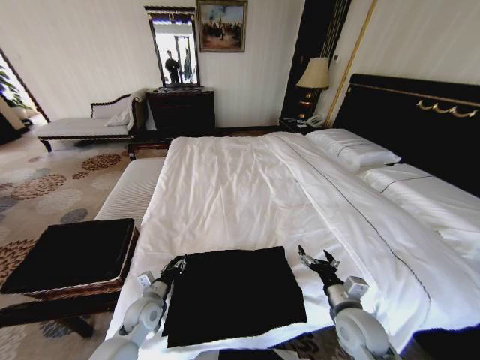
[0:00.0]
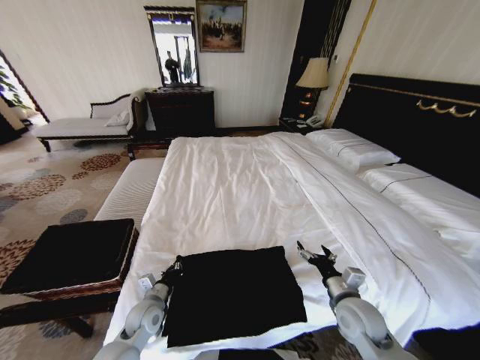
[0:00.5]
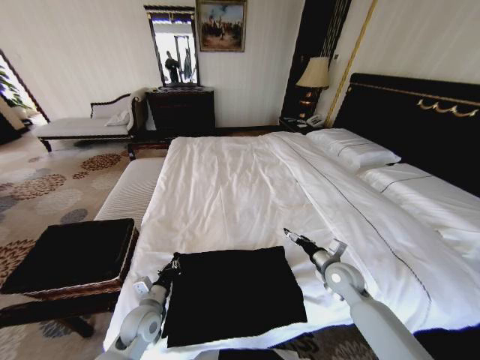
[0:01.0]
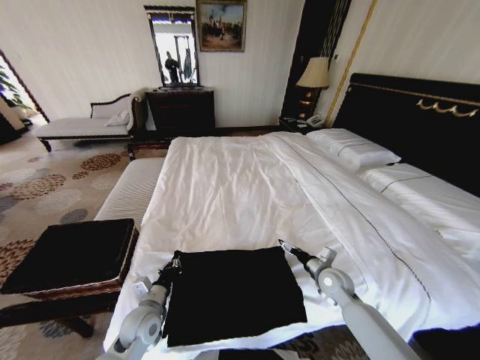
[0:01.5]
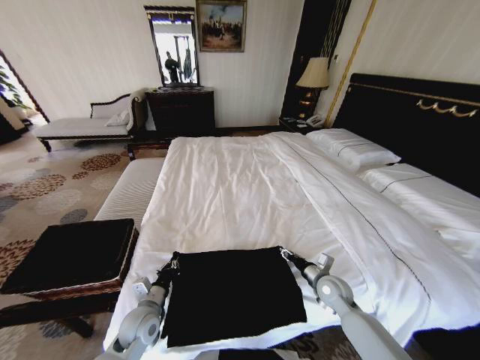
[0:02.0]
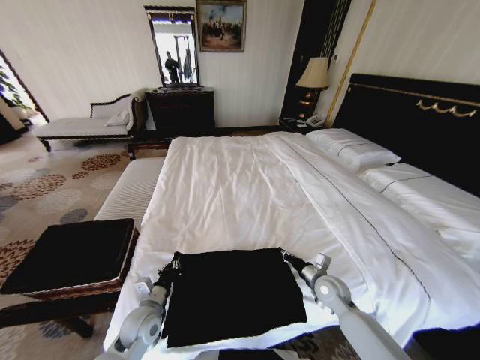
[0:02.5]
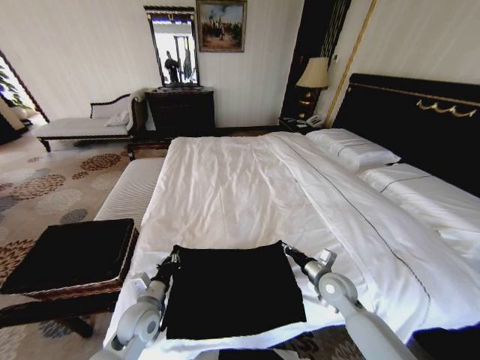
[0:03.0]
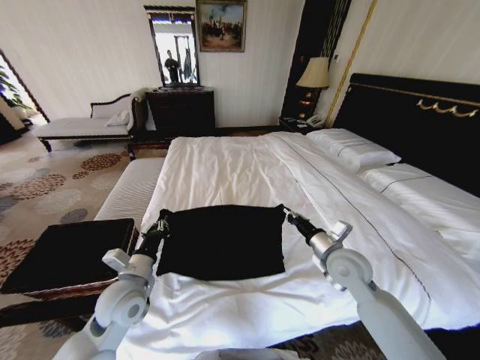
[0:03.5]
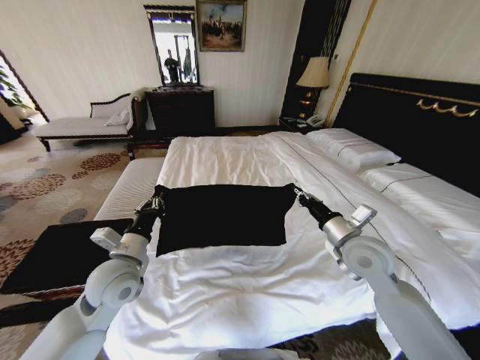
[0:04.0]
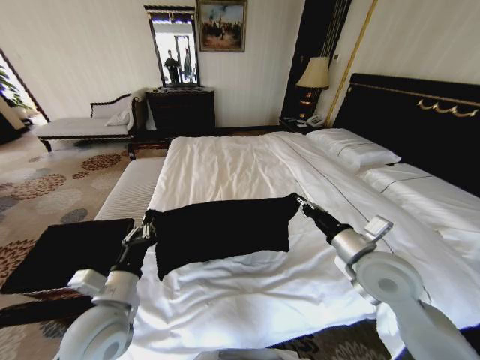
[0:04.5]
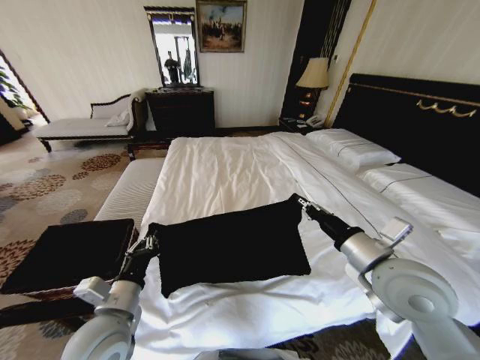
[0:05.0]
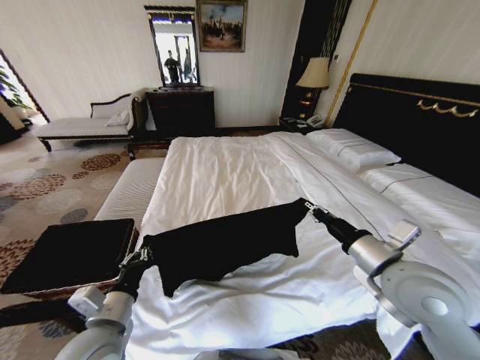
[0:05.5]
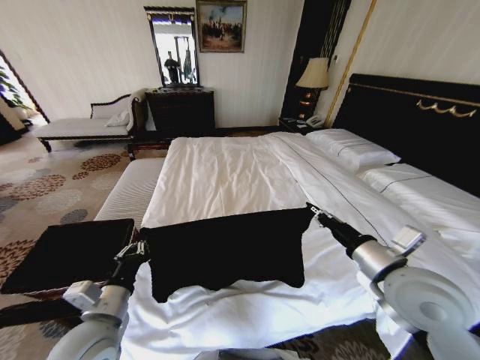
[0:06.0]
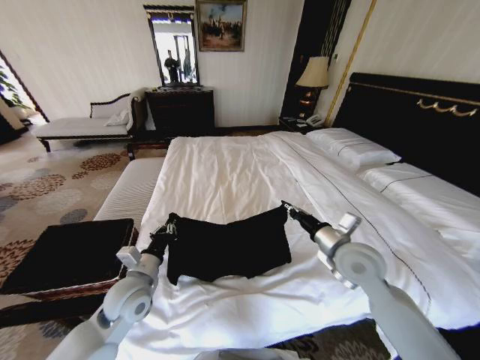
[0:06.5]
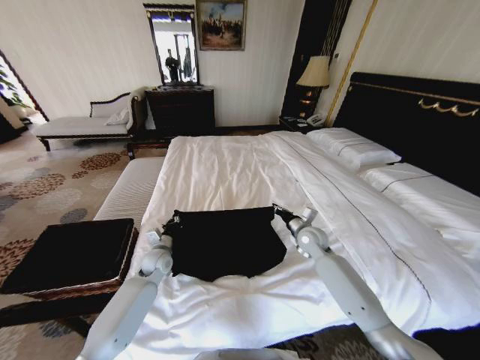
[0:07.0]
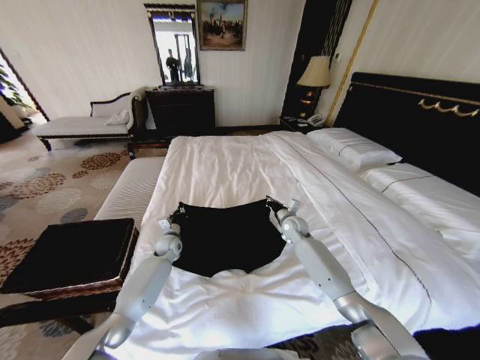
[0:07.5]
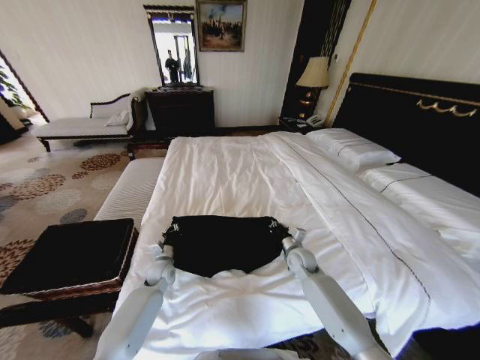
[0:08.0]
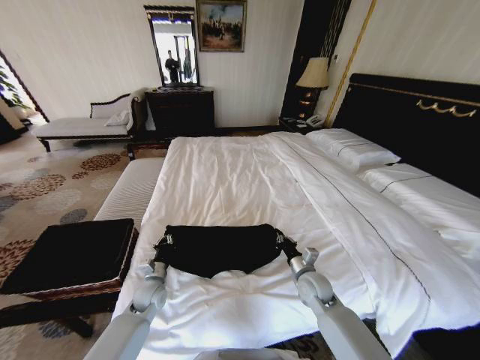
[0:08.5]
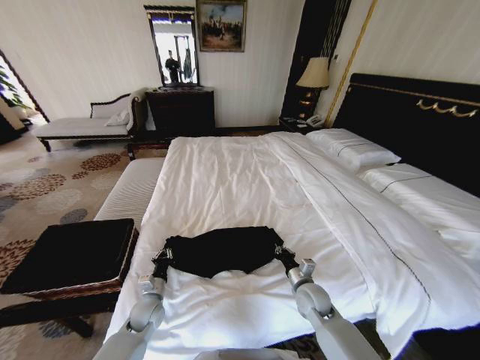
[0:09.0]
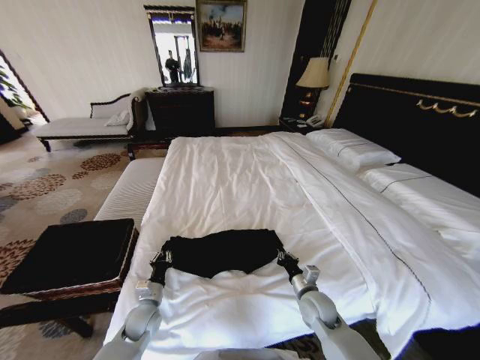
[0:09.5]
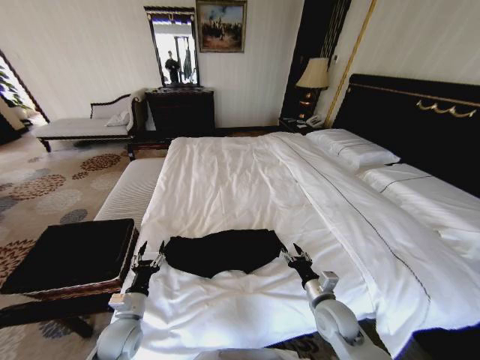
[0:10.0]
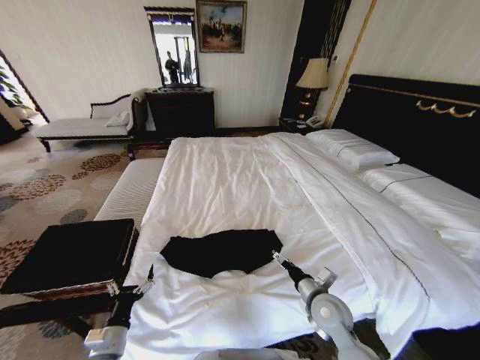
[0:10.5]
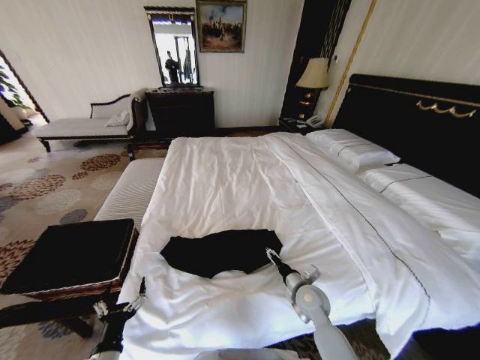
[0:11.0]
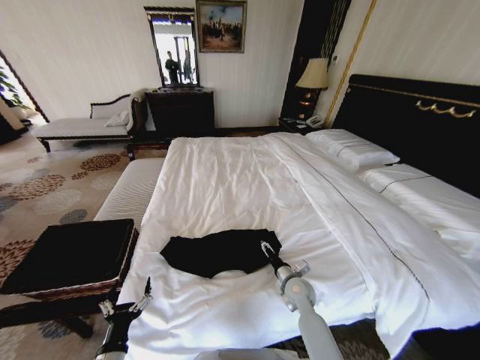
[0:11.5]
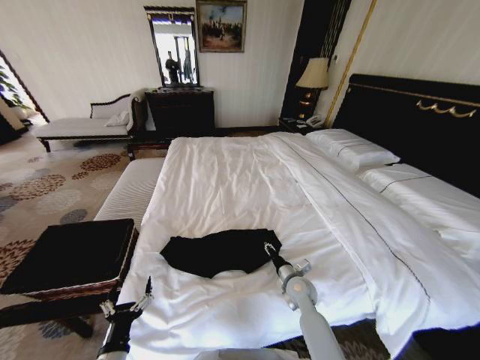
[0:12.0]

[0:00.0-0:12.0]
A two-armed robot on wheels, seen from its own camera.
Task of the whole recording: Fold the clothes on the bed and place them into the basket.
0:00.0 to 0:02.0: The right gripper goes some 10 cm forward and downward, and closes up. Meanwhile the left gripper closes its fingers.
0:02.0 to 0:04.0: Both grippers move upward, approximately 20 cm. The right gripper closes.
0:04.0 to 0:06.0: The two grippers go roughly 10 cm backward.
0:06.0 to 0:08.0: The right gripper moves downward and forward, some 30 cm, while the left gripper is displaced forward and downward by about 30 cm.
0:08.0 to 0:10.0: The grippers both shift backward by approximately 20 cm. The right gripper opens. The left gripper opens its fingers.
0:10.0 to 0:12.0: The right gripper heads forward and downward, covering approximately 10 cm, and opens, then closes again. The left gripper moves backward, some 15 cm, and opens.

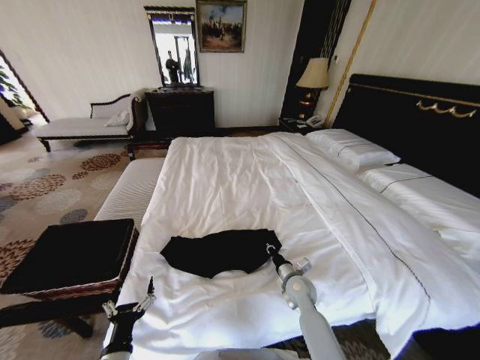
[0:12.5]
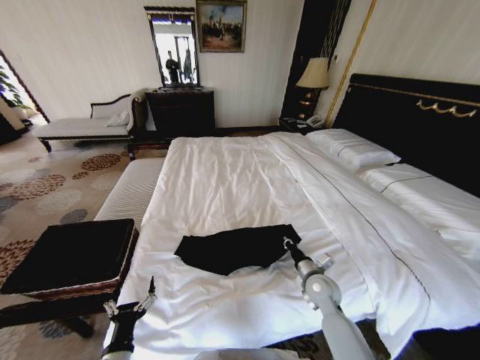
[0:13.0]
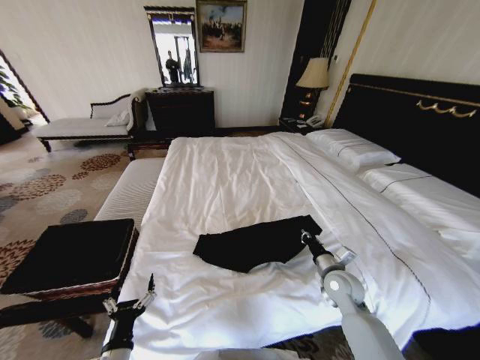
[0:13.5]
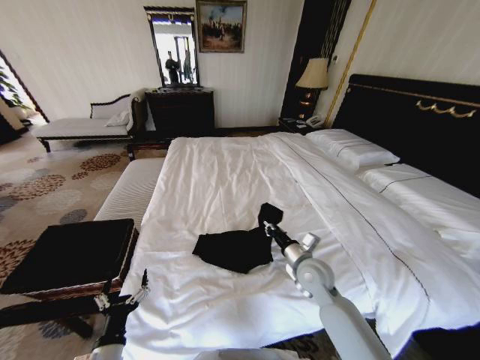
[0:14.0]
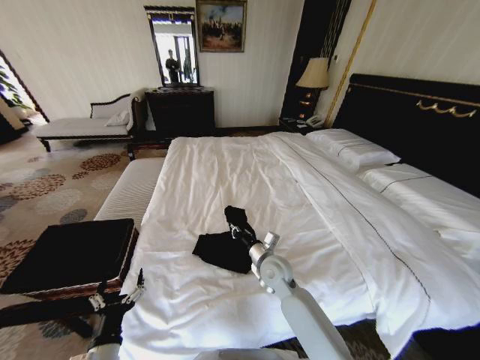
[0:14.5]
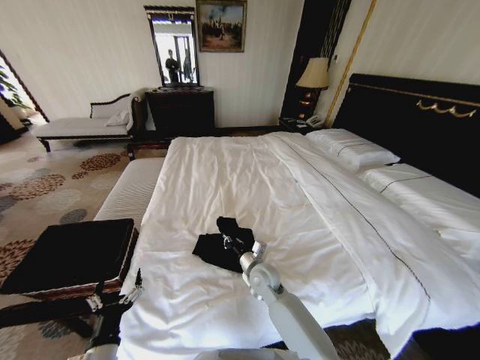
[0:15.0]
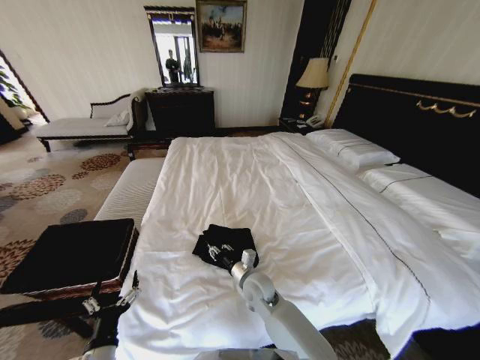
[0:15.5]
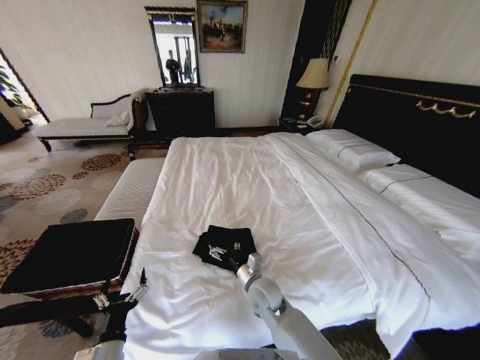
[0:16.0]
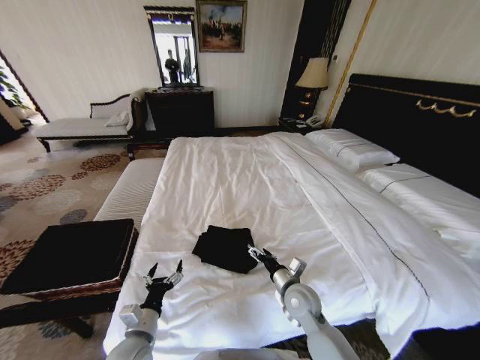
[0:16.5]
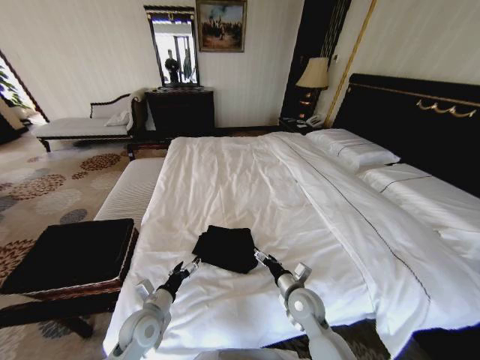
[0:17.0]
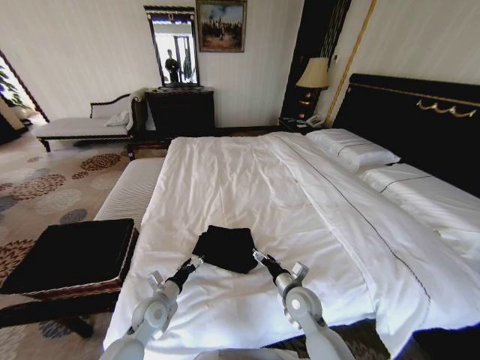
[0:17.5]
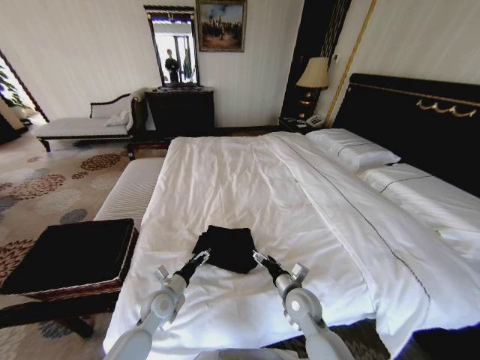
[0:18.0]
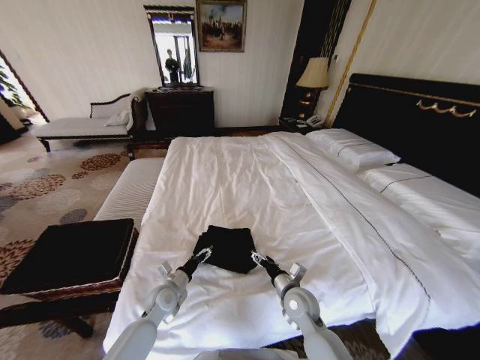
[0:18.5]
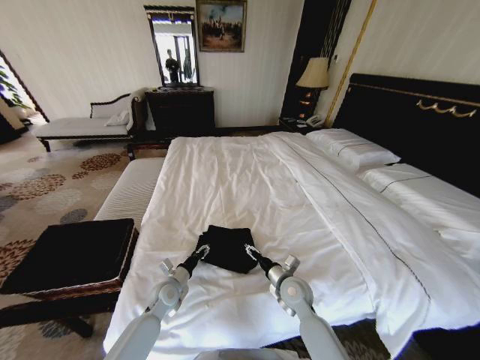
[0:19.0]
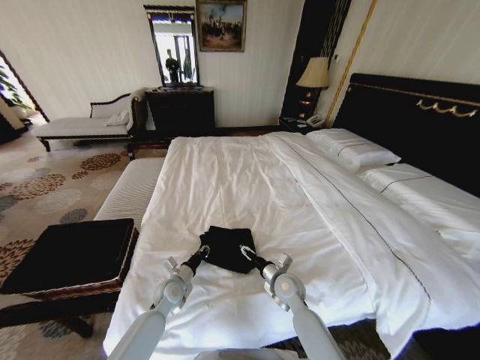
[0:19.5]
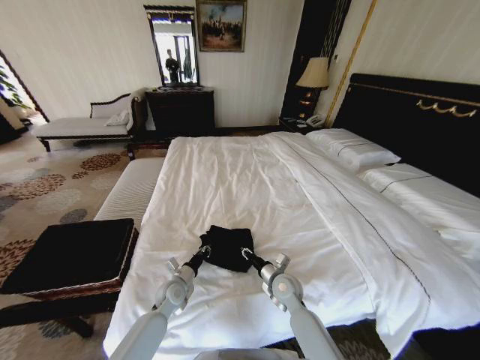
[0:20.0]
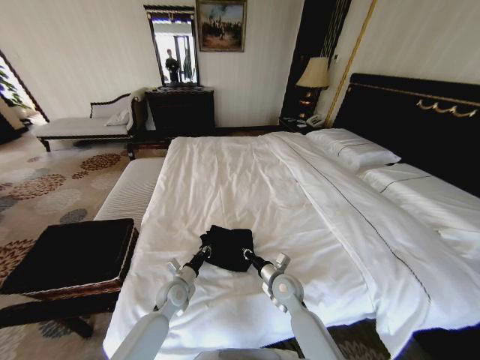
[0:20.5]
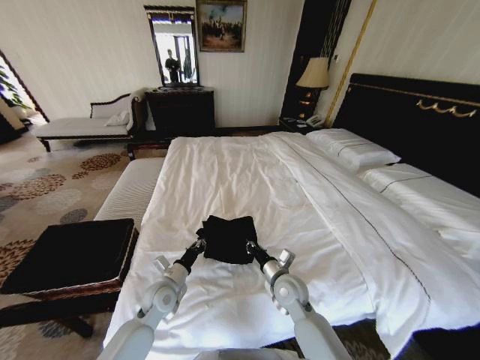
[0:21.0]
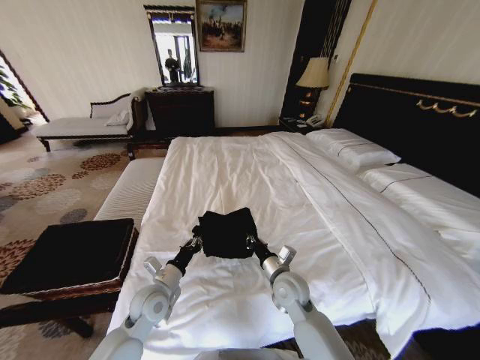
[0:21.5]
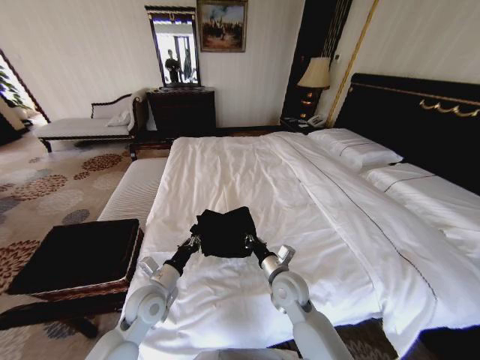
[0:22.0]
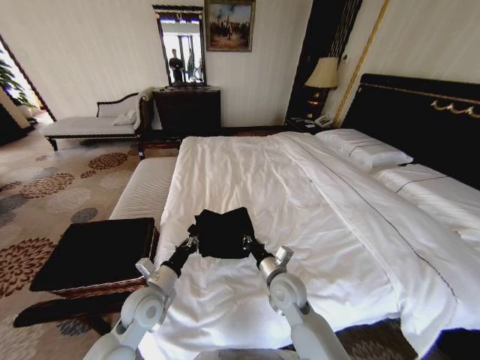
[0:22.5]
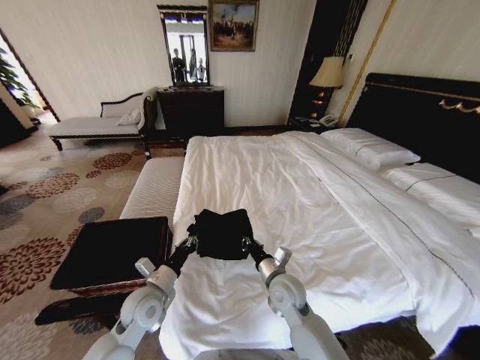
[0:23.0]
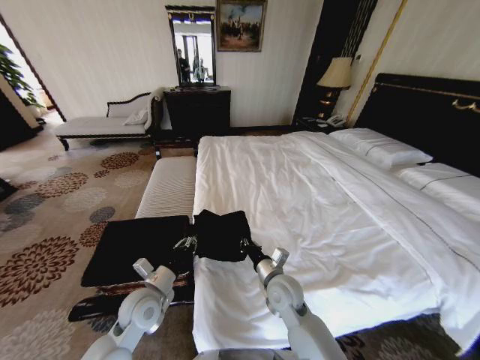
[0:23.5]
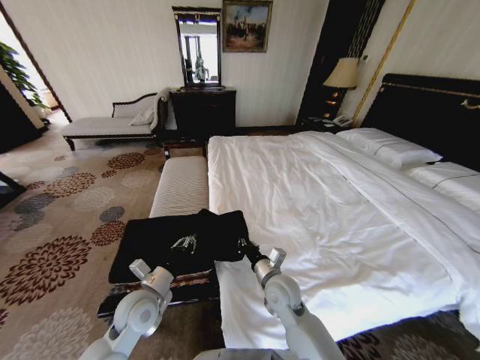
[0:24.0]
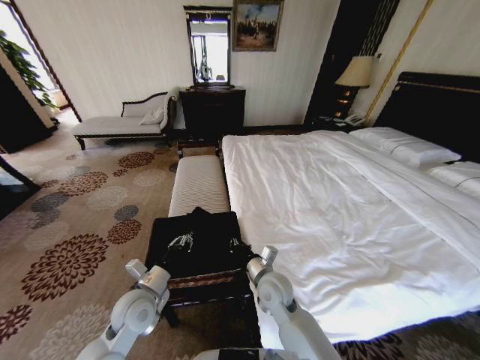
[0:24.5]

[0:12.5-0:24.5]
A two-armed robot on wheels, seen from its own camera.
Task of the whole recording: Fold the clothes on the bed and place them into the basket.
0:12.5 to 0:14.5: The right gripper moves upward and to the left, some 15 cm.
0:14.5 to 0:16.5: The right gripper moves backward and to the right, approximately 10 cm, and opens up. The left gripper travels forward by about 5 cm.
0:16.5 to 0:18.5: The left gripper shifts approximately 15 cm forward.
0:18.5 to 0:20.5: The right gripper ends up about 5 cm from where it was, and closes up; the left gripper closes its fingers.
0:20.5 to 0:22.5: The left gripper shifts some 15 cm upward and backward, while the right gripper heads upward, covering roughly 5 cm.

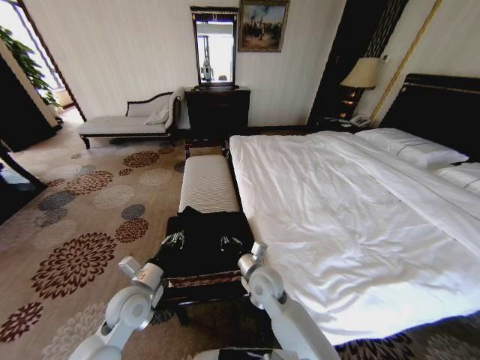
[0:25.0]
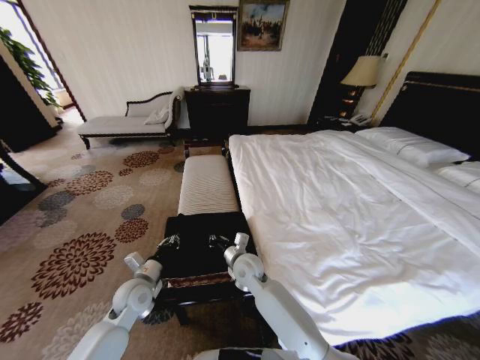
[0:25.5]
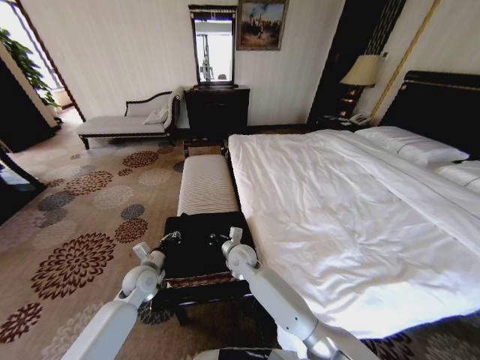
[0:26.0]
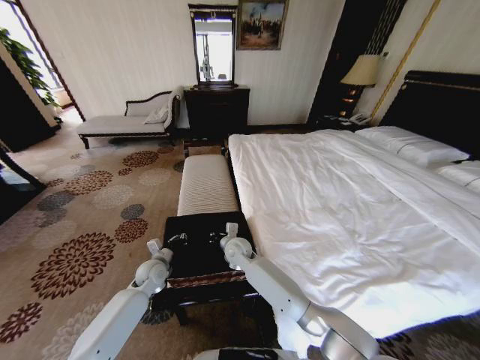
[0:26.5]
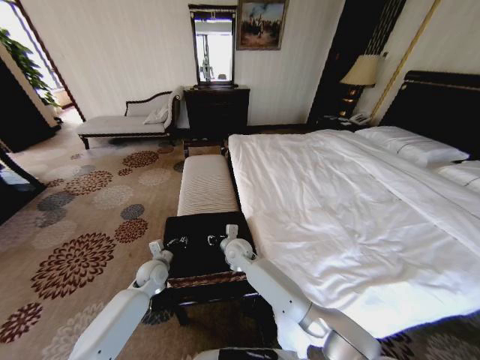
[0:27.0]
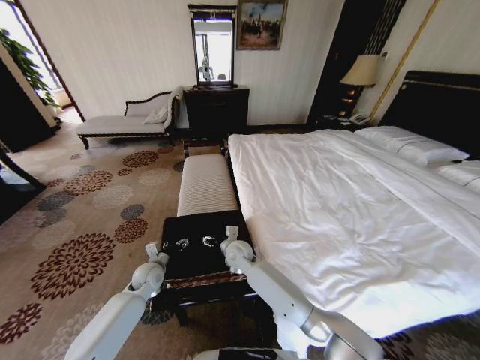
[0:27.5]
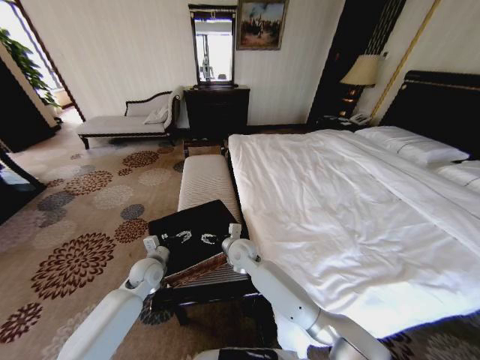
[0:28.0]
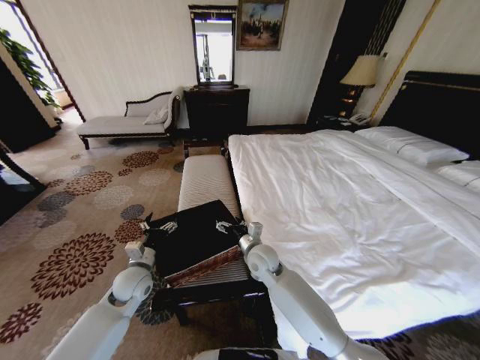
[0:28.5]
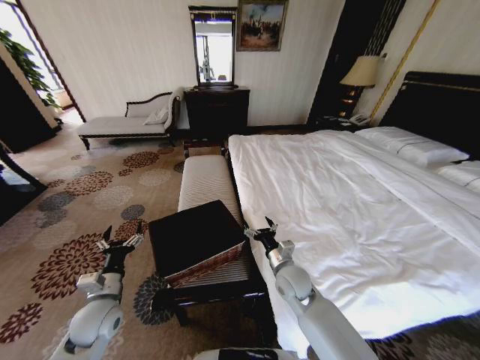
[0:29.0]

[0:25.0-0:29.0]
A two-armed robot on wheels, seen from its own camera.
Task of the whole recording: Fold the clothes on the bed and place them into the basket.
0:25.0 to 0:27.0: The right gripper travels forward and to the left by roughly 15 cm; the left gripper heads forward and downward, covering about 15 cm.
0:27.0 to 0:29.0: The right gripper is displaced to the right and backward by about 20 cm, and opens its fingers, while the left gripper moves backward, upward and to the left, approximately 15 cm, and opens up.
